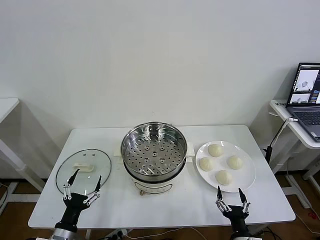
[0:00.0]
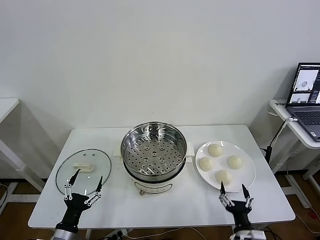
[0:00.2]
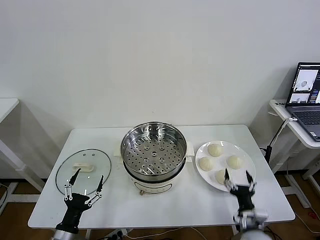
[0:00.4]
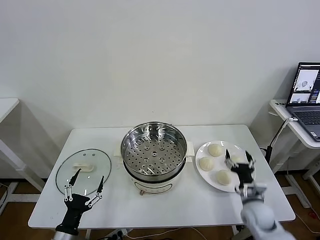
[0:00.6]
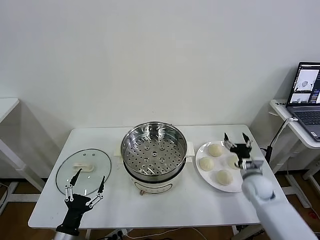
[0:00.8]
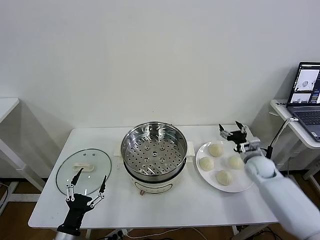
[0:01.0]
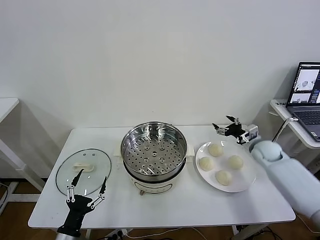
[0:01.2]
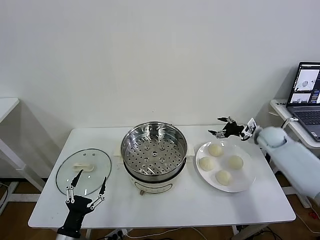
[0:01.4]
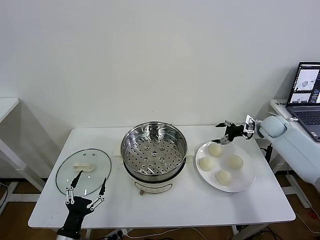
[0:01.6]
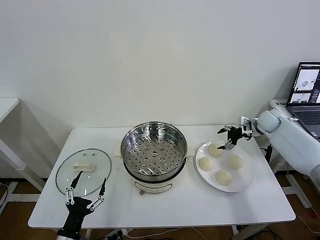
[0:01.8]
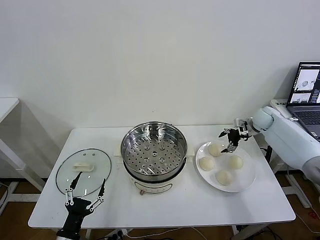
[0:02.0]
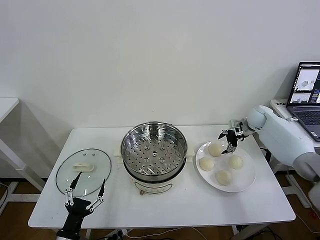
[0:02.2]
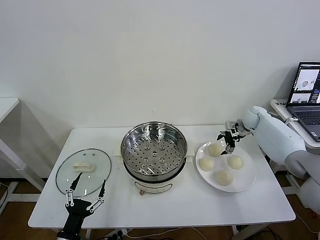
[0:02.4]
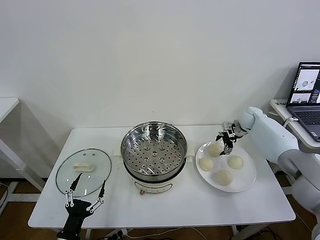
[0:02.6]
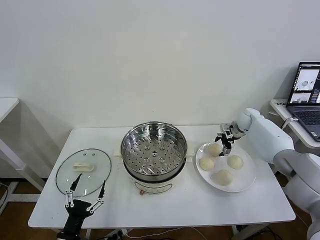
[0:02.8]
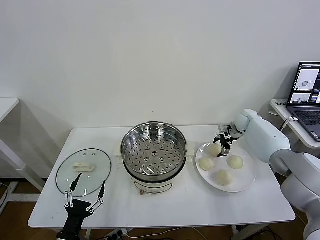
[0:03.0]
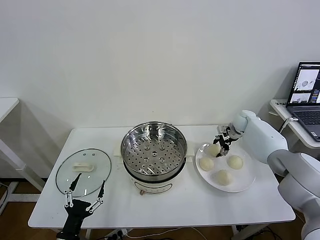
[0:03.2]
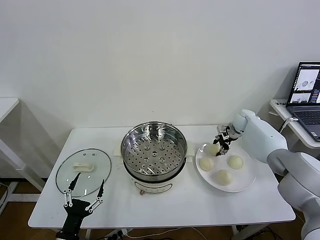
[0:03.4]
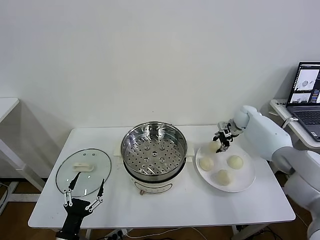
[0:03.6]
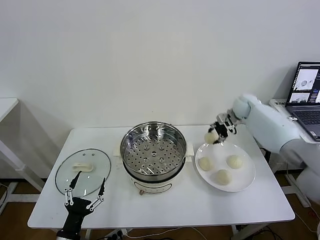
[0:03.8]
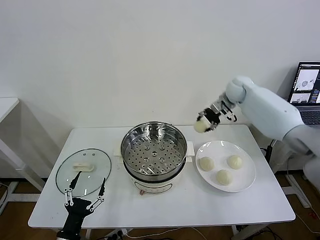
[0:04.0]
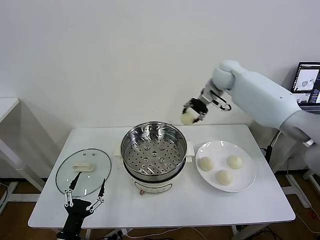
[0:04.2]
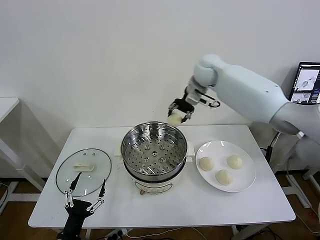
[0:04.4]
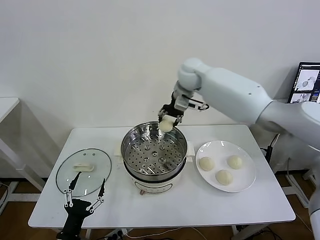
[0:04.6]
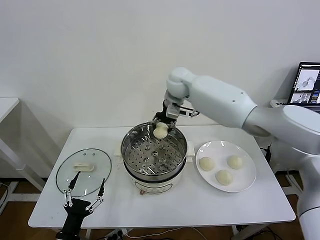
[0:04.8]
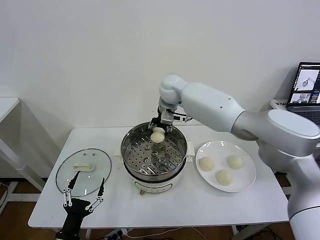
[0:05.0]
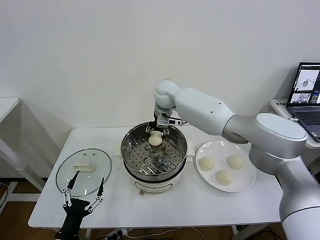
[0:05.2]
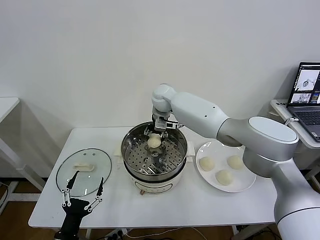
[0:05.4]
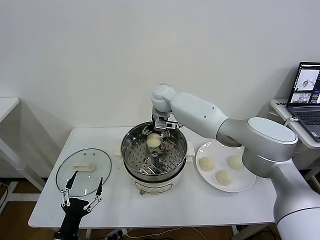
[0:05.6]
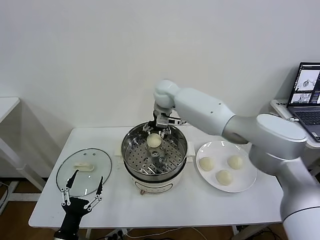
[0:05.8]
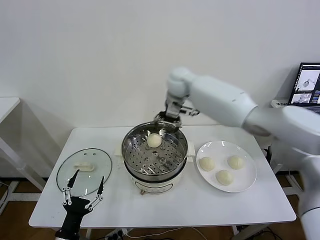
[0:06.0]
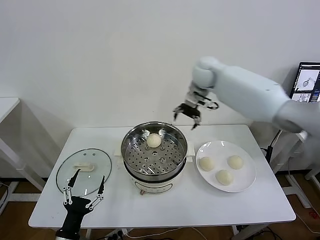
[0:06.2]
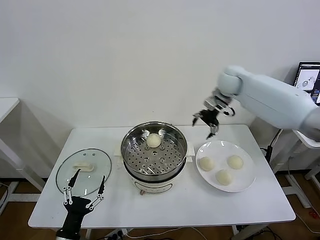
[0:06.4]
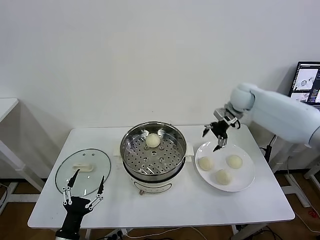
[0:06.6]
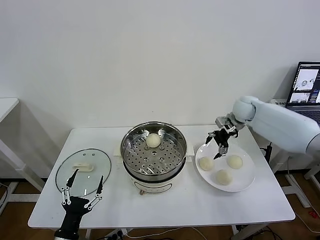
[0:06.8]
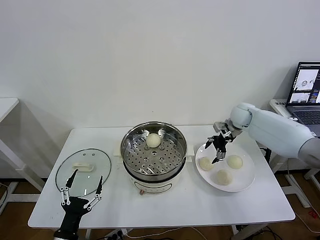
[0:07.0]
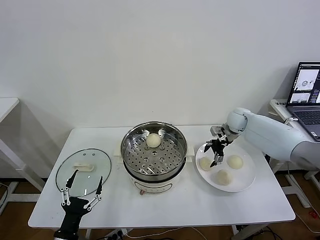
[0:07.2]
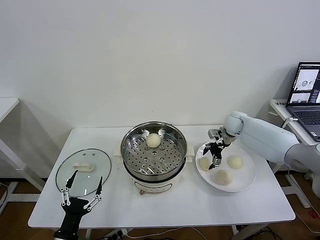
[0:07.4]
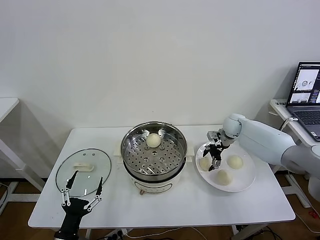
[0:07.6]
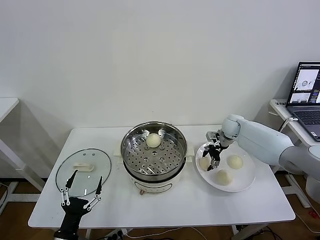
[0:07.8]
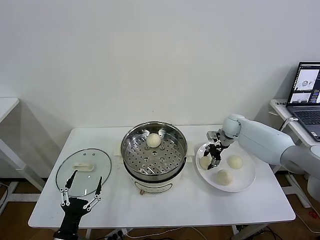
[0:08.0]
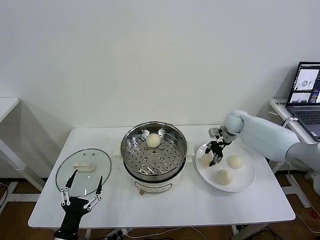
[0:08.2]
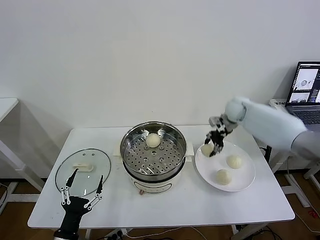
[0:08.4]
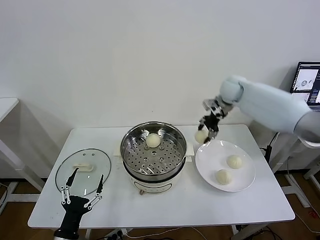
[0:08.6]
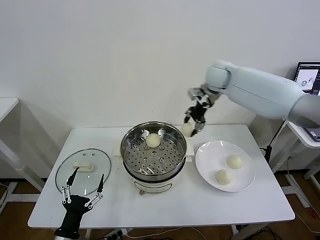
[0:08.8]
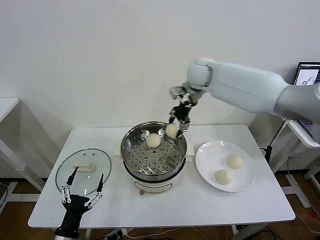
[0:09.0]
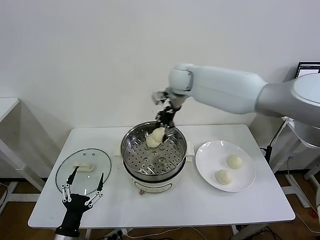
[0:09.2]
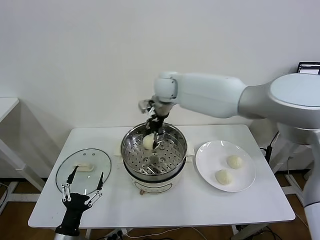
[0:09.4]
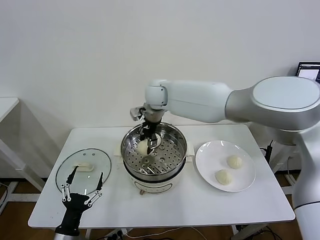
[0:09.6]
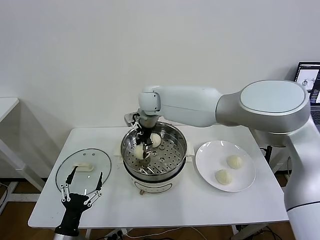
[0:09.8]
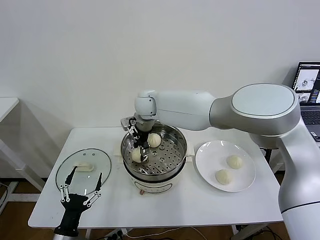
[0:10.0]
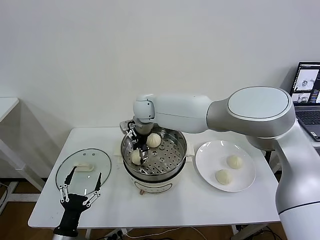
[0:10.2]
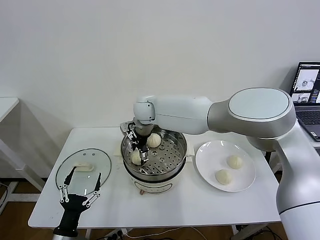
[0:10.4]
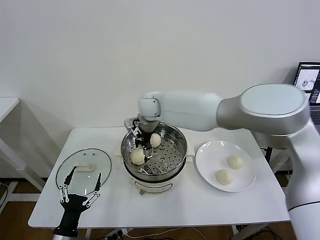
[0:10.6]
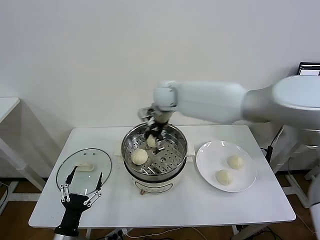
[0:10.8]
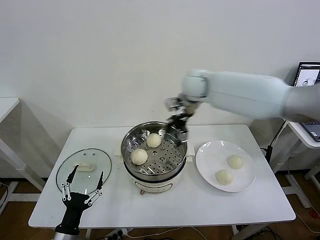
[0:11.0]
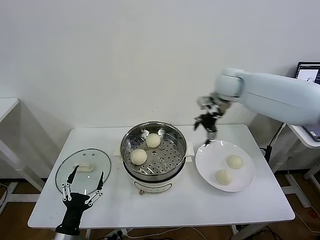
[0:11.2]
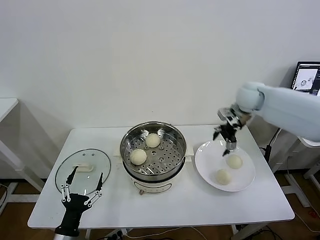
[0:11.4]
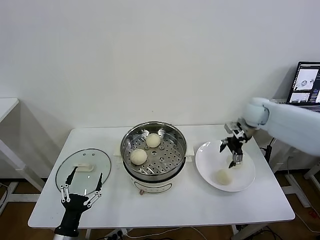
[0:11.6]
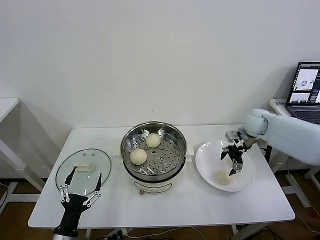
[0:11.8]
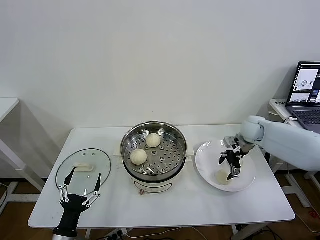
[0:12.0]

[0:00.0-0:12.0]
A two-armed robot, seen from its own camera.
Task of the whole recording: take steamed baozi put them in steamer then cover it.
Step, 0:00.0 to 0:03.2: Grasp the baozi in the plate with right gripper.
Step, 0:03.6 to 0:05.6: Place the baozi on the steamer with right gripper.
Step, 0:05.8 to 0:07.8: Grasp the baozi in the plate with right gripper.
Step, 0:08.0 to 0:10.4: Place the baozi on the steamer with right gripper.
0:01.6 to 0:03.0: The right gripper moves to the left and forward, about 10 cm.
0:03.0 to 0:04.4: The right gripper goes approximately 35 cm to the left and upward, and closes.
0:04.4 to 0:06.0: The right gripper reaches about 10 cm to the left, then returns, and opens its fingers.
0:06.0 to 0:07.6: The right gripper shifts approximately 30 cm downward and to the right.
0:07.6 to 0:09.0: The right gripper moves upward and to the left, approximately 30 cm, and closes its fingers.
0:09.0 to 0:10.4: The right gripper is displaced to the left and downward by some 20 cm, and opens its fingers.
0:10.4 to 0:12.0: The right gripper is displaced to the right by some 40 cm.

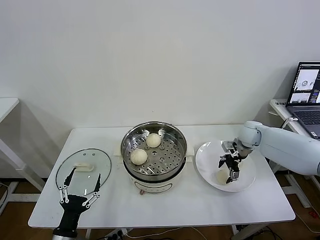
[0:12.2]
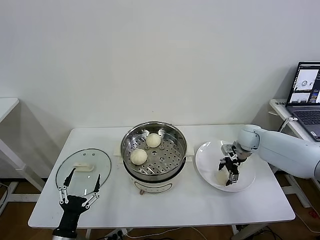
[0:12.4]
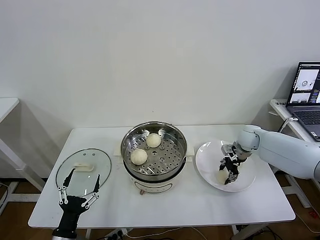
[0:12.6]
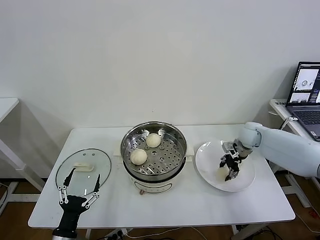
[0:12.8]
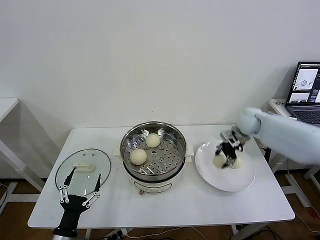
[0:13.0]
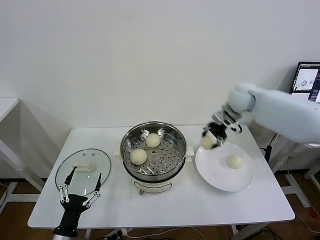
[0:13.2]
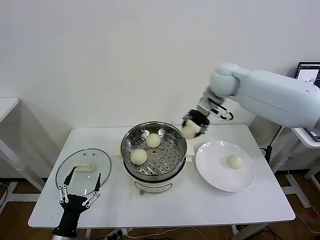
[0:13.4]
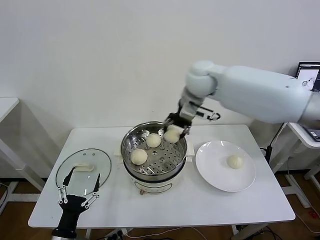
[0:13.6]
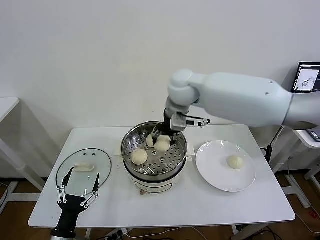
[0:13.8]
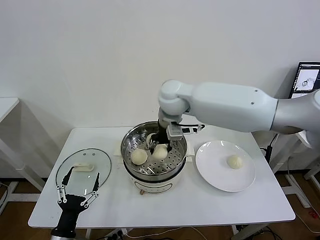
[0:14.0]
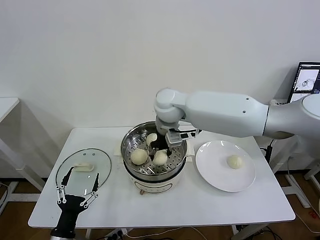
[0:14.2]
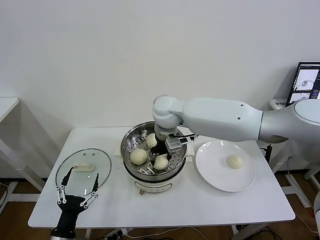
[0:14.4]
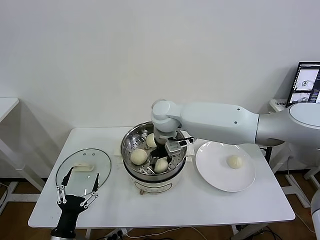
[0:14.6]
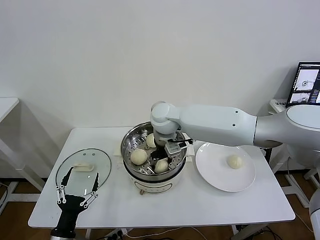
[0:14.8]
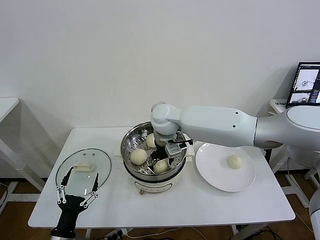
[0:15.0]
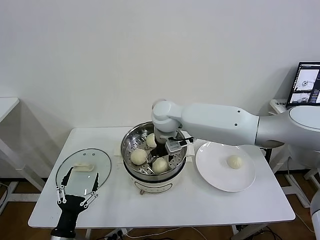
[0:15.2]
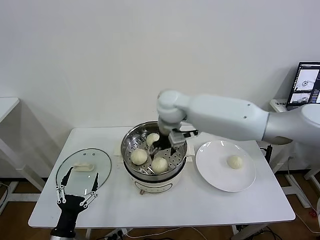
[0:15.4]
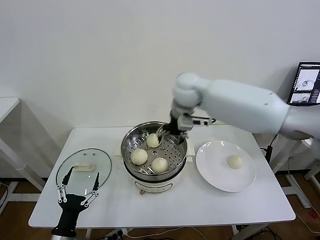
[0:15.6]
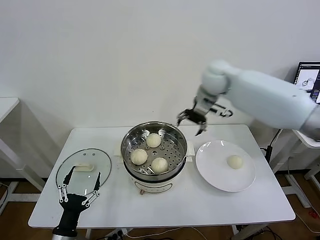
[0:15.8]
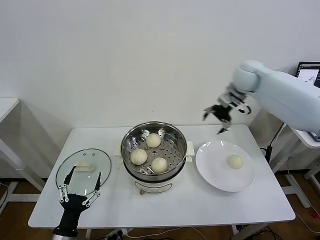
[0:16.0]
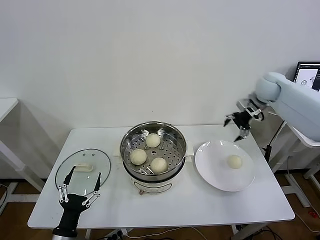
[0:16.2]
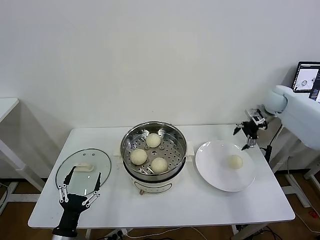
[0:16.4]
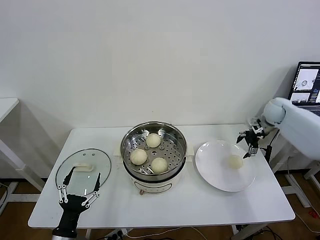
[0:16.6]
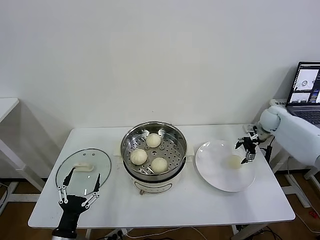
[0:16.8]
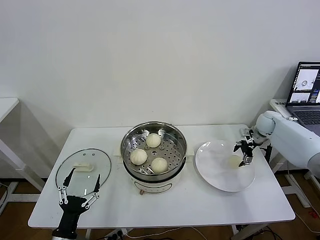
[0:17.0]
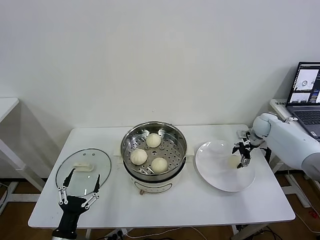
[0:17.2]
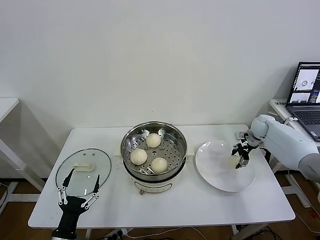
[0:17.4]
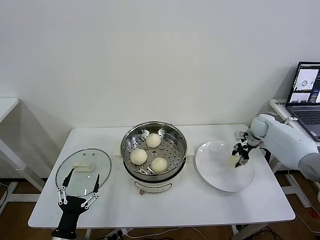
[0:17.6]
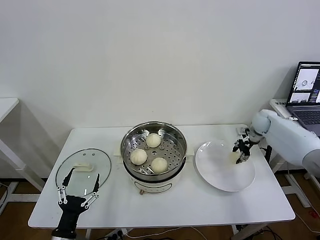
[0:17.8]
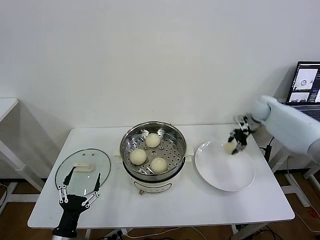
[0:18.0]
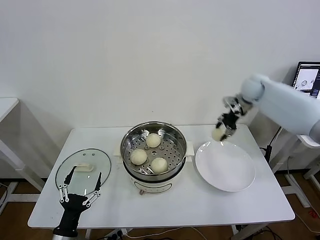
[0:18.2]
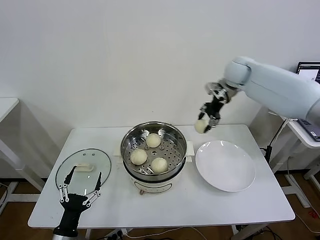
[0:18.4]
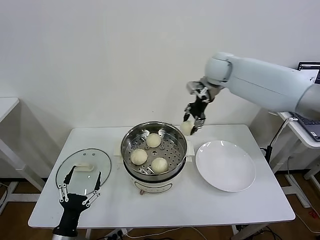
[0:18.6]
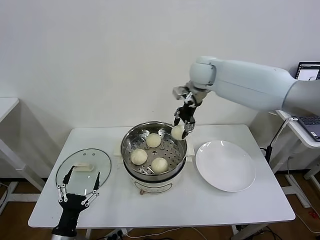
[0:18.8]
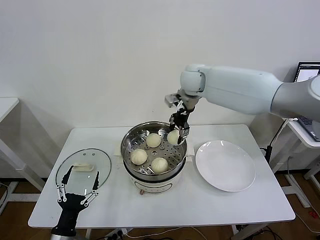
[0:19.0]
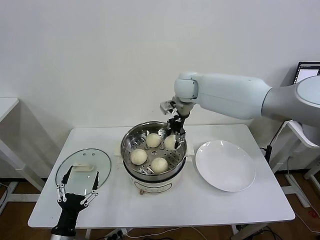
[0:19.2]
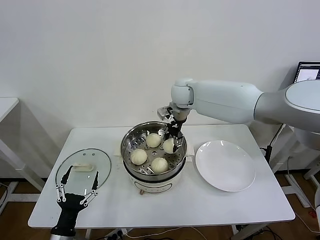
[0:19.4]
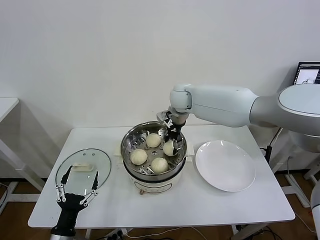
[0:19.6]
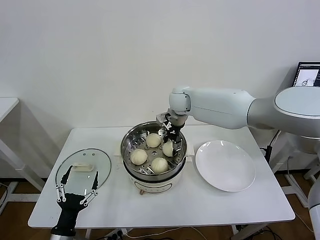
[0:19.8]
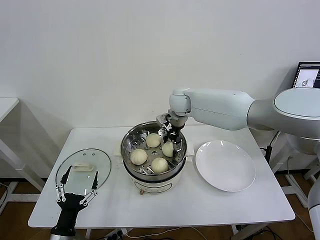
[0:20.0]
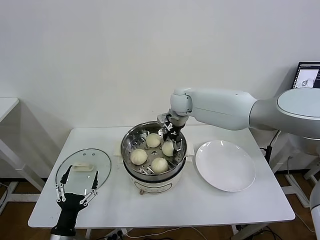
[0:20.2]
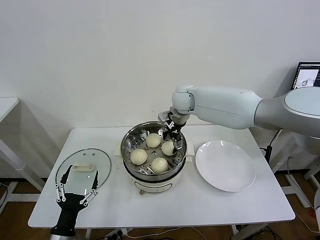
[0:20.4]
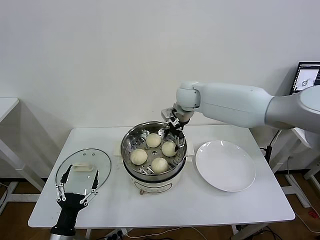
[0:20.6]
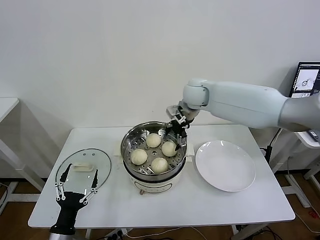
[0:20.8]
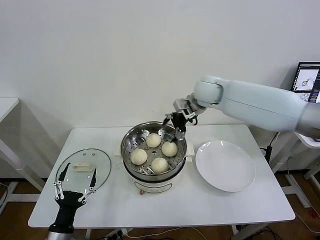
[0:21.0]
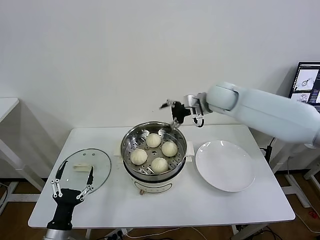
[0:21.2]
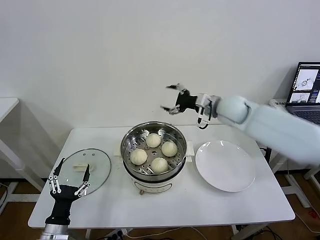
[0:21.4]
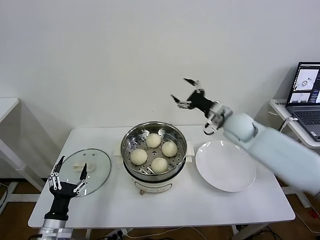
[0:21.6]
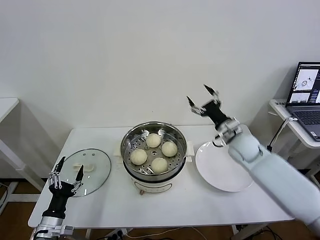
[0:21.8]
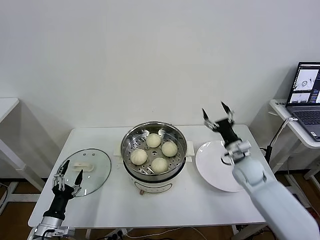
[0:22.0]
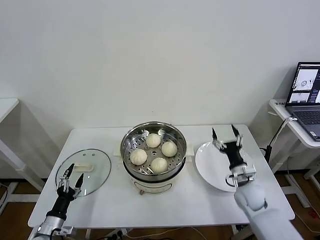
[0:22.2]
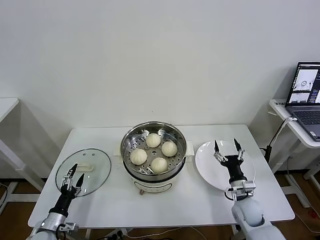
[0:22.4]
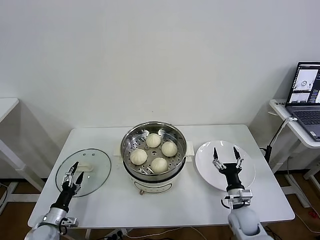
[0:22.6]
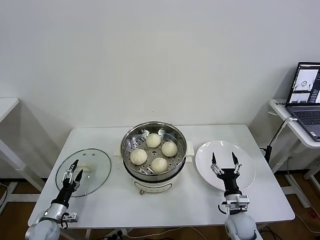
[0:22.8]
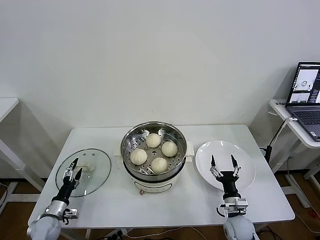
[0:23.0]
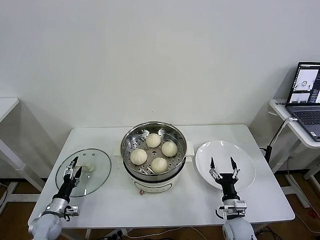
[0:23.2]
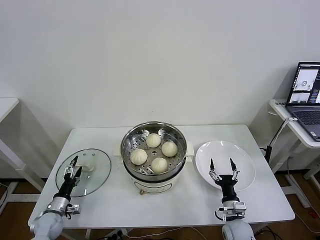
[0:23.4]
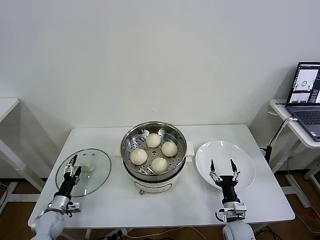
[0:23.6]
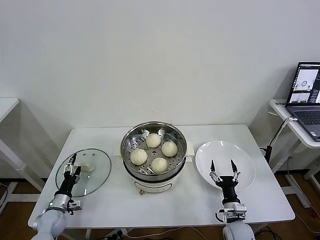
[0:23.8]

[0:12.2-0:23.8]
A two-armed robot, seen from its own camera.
Task of the whole recording: take steamed baozi put them in steamer then cover it.
Step, 0:12.8 to 0:15.2: Place the baozi on the steamer with right gripper.
Step, 0:15.4 to 0:17.6: Grasp the baozi in the plate with right gripper.
Step, 0:17.8 to 0:20.4: Place the baozi on the steamer with right gripper.
0:12.2 to 0:13.6: The right gripper shifts roughly 35 cm to the left and upward, and closes its fingers.
0:13.6 to 0:15.0: The right gripper is displaced downward and to the left by approximately 15 cm, and opens.
0:15.0 to 0:16.6: The right gripper is displaced to the right by some 40 cm.
0:16.6 to 0:18.0: The right gripper moves to the left, roughly 5 cm, moves about 10 cm downward and comes back, and closes.
0:18.0 to 0:19.4: The right gripper goes roughly 30 cm to the left.
0:19.4 to 0:21.0: The right gripper is displaced to the right by approximately 10 cm, and opens up.
0:21.0 to 0:22.4: The left gripper travels to the left, downward and forward by approximately 15 cm. The right gripper goes roughly 50 cm downward, backward and to the right.
0:22.4 to 0:23.8: The left gripper heads forward, covering approximately 10 cm; the right gripper goes roughly 10 cm downward and backward.
